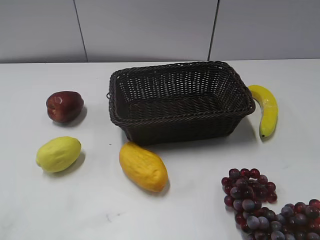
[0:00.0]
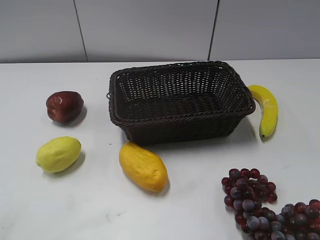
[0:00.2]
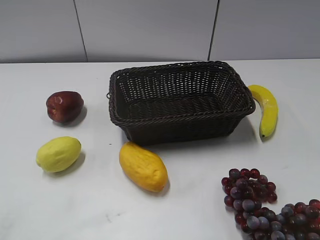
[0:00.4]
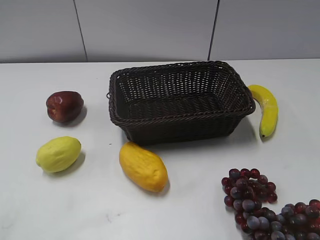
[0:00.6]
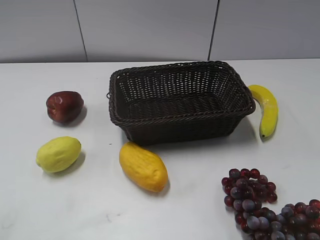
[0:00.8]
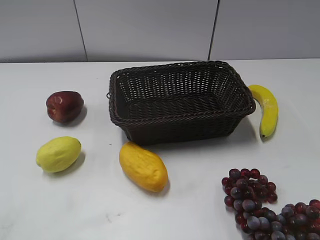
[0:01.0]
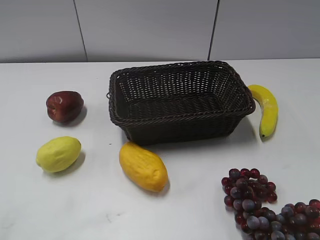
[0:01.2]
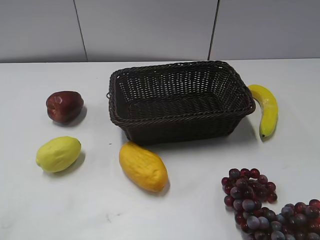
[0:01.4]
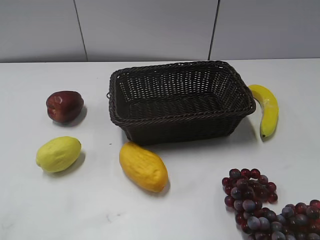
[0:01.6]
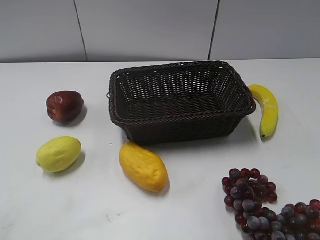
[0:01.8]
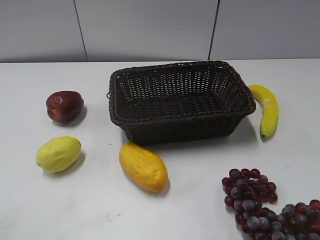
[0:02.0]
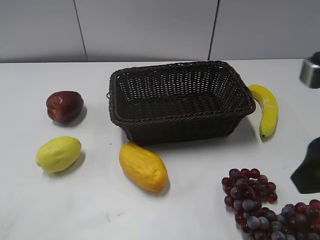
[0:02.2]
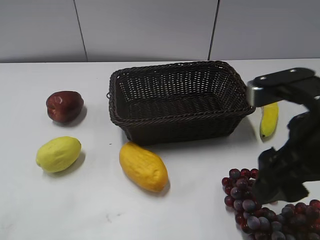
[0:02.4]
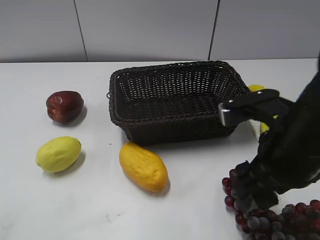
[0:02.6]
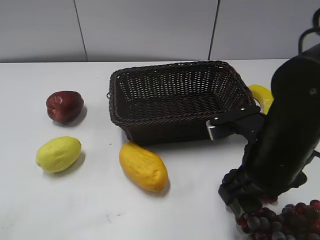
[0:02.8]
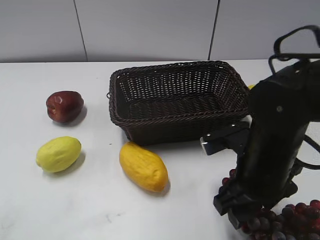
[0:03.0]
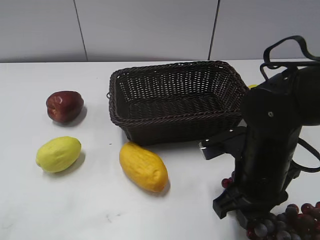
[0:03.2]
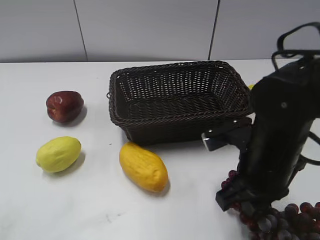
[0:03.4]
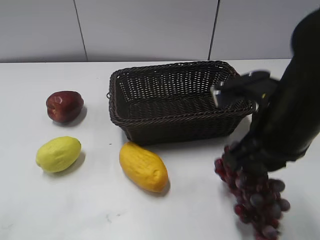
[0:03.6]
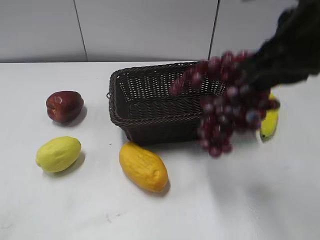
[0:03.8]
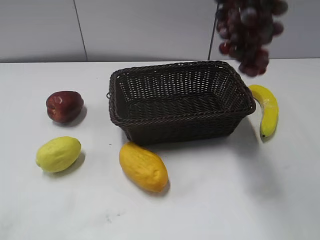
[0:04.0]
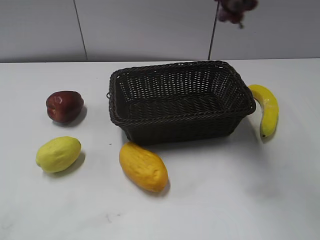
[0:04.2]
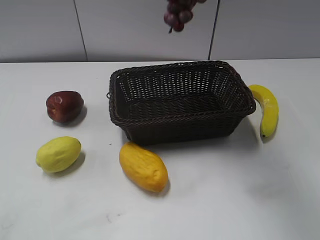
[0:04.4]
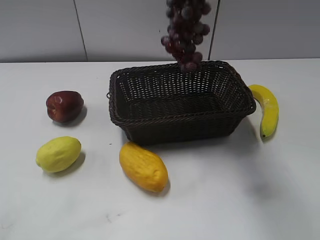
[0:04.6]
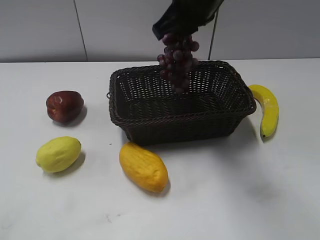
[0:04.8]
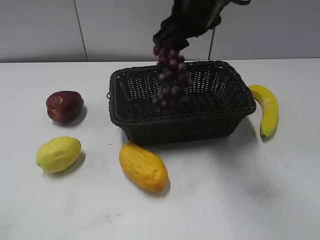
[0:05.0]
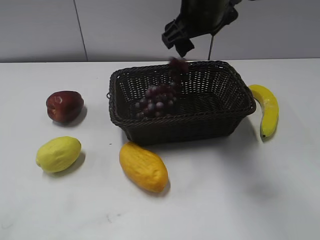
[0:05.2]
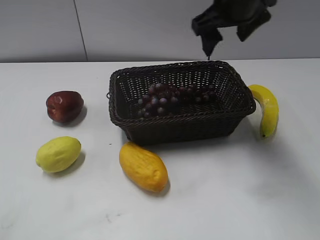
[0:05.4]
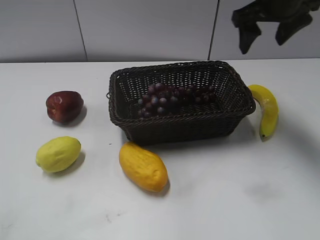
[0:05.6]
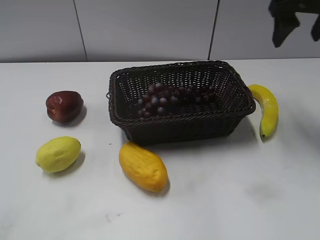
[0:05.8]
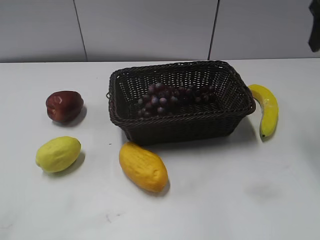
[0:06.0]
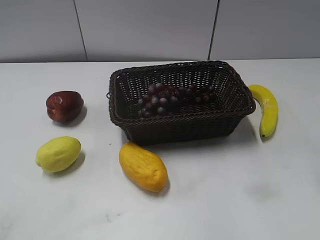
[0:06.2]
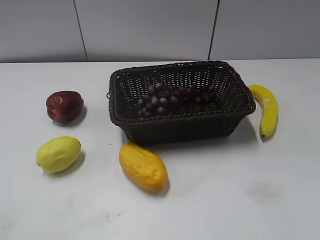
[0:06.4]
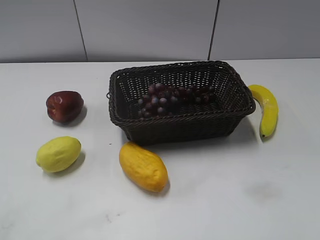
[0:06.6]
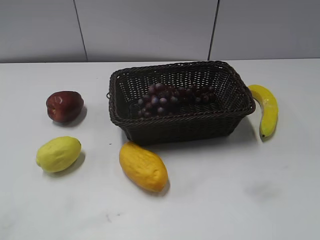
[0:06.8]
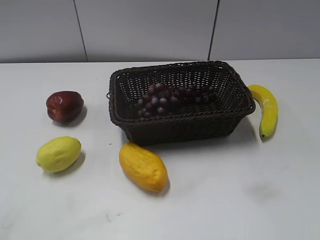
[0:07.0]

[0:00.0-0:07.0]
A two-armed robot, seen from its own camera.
Step, 0:02.2 to 0:03.4: Grasp the grape with right gripper.
Step, 0:03.6 to 0:05.2: Place the grape in the basket with right gripper.
0:01.4 to 0:02.8: The right gripper moves to the left, forward and downward, approximately 30 cm.
0:02.8 to 0:04.2: The right gripper is displaced upward by some 30 cm, and closes.
0:04.2 to 0:05.6: The right gripper goes about 20 cm downward, forward and to the right, and opens up.
0:05.6 to 0:07.0: The right gripper is displaced backward by roughly 35 cm.

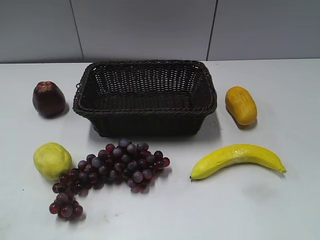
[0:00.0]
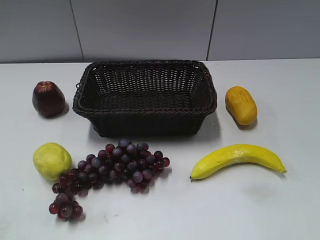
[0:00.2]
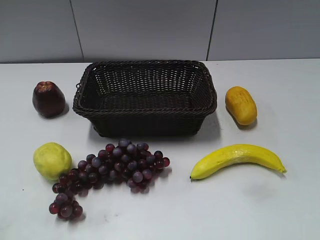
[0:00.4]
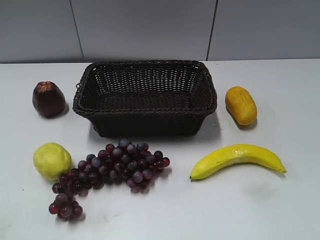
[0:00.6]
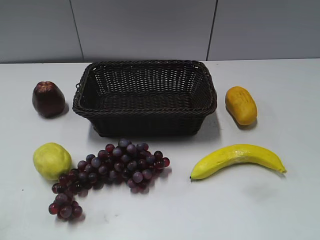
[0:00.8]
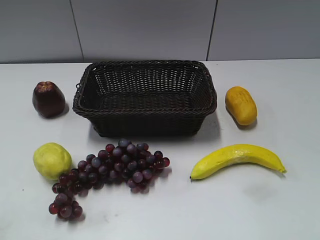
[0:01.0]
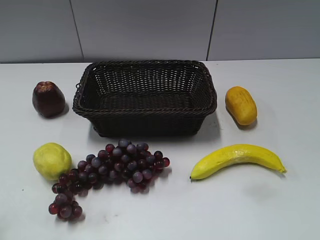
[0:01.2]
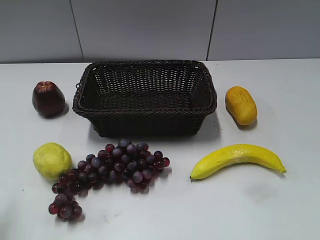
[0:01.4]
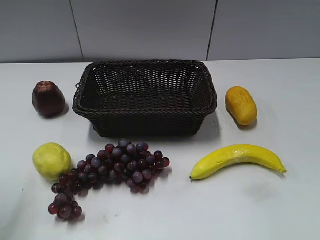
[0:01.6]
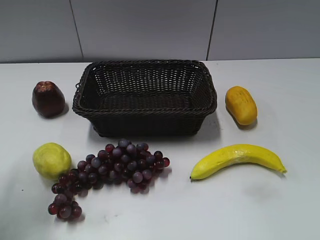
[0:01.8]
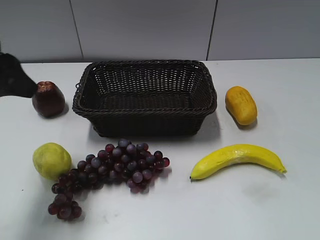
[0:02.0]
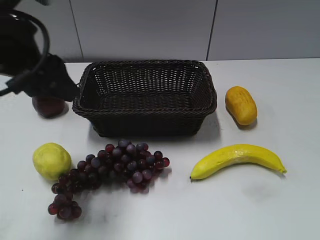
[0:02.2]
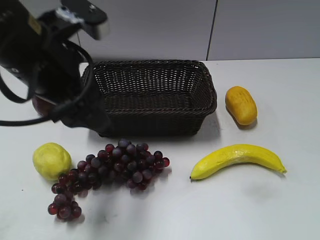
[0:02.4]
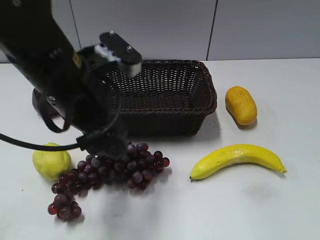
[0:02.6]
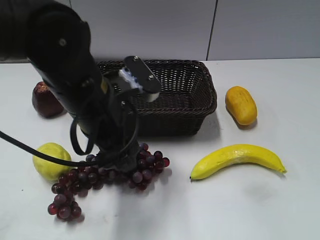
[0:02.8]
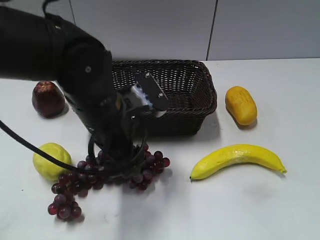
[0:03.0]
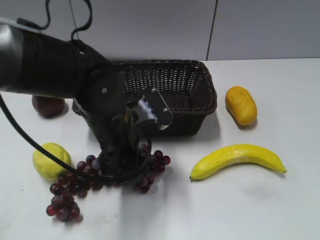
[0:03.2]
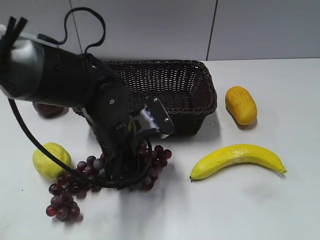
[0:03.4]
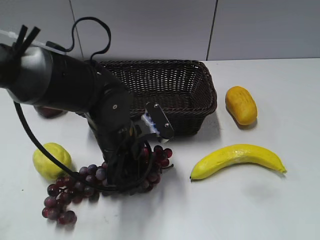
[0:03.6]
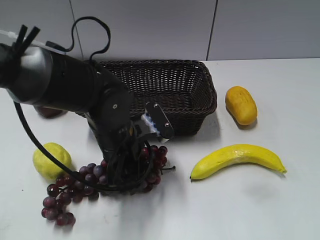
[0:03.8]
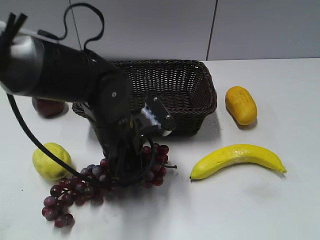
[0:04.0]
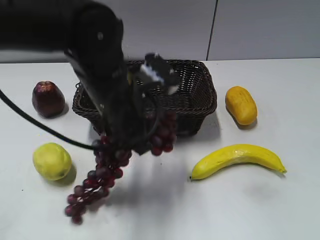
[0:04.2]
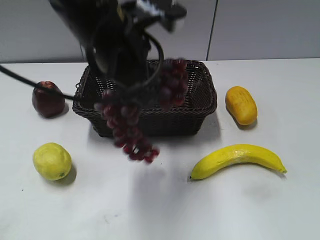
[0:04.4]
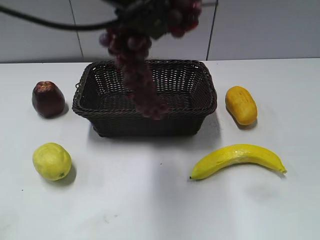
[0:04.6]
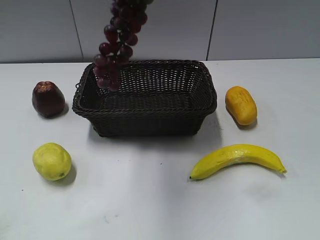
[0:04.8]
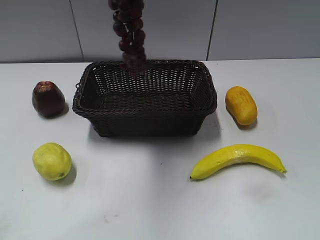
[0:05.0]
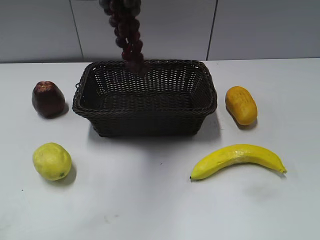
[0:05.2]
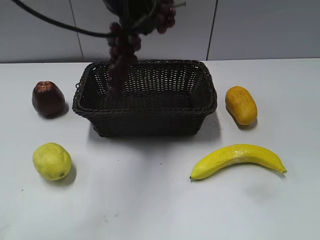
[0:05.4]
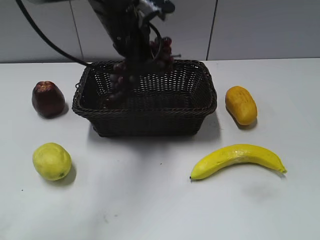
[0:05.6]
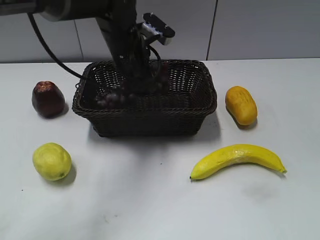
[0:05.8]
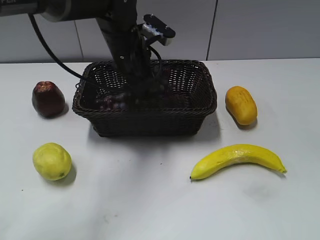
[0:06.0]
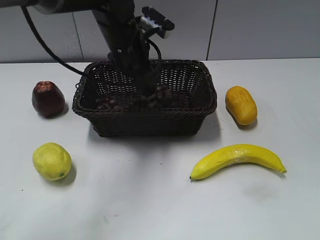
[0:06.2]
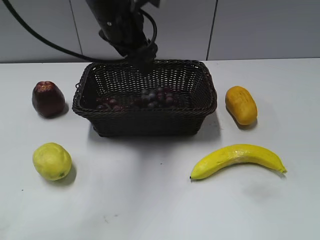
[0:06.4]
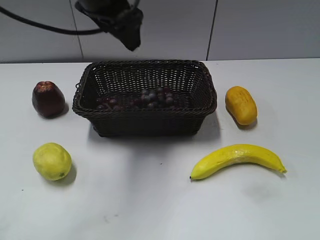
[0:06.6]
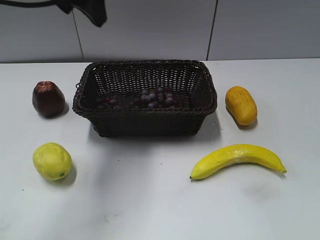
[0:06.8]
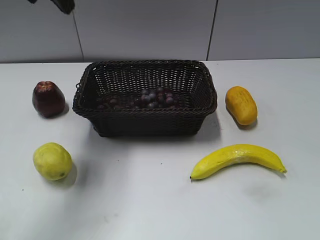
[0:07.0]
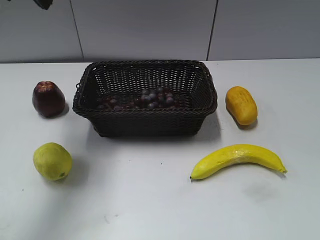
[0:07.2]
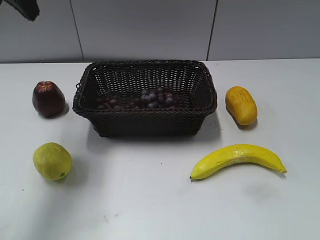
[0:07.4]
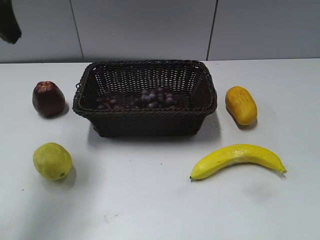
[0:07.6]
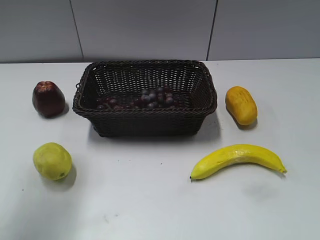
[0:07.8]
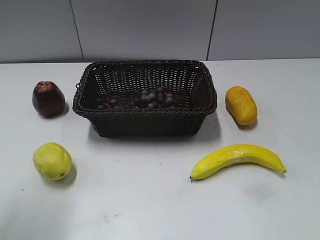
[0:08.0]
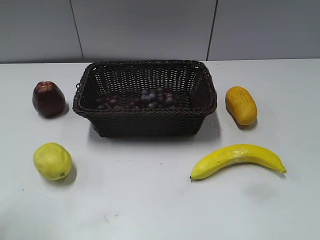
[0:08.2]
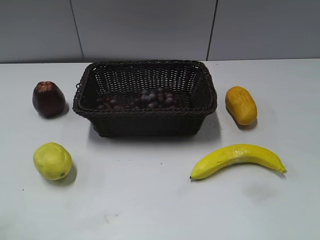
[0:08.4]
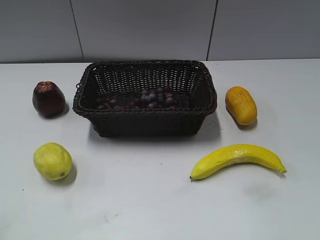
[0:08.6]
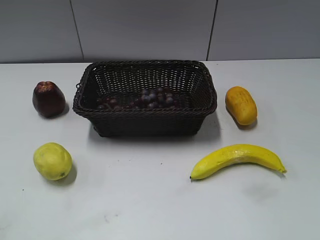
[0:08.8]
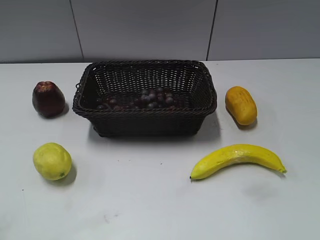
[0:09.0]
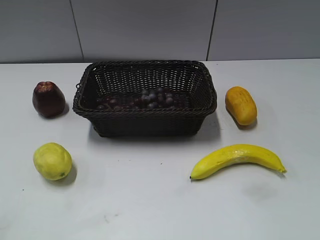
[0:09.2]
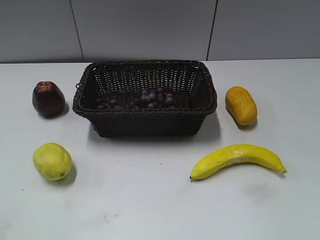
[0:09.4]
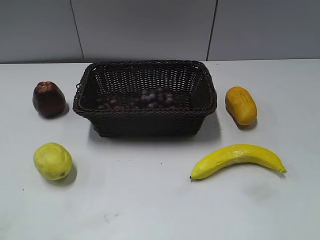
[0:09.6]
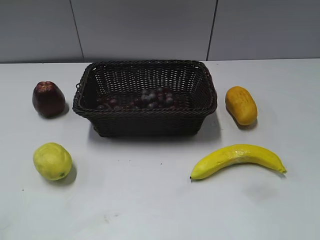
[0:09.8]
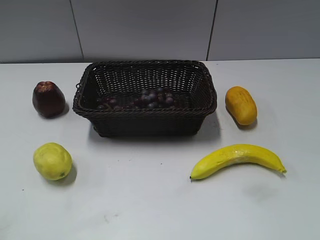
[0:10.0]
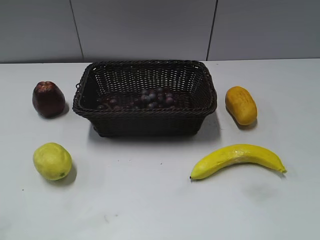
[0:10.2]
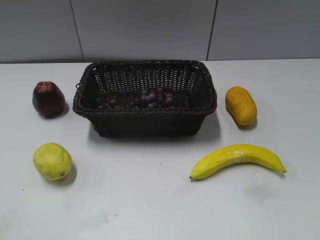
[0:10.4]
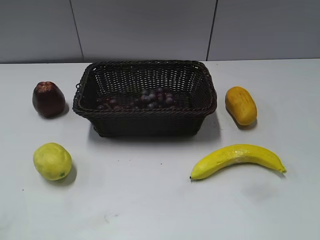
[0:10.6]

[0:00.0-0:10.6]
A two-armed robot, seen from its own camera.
Step, 0:02.0 to 0:03.6: Grasp the grape with left gripper.
Step, 0:03.8 to 0:06.0: Place the grape in the basket with left gripper.
0:01.6 to 0:03.0: The left gripper goes some 25 cm to the right and downward.
0:03.0 to 0:04.6: The left gripper is displaced upward by approximately 20 cm, and closes.
0:04.6 to 0:06.0: The left gripper goes some 20 cm downward and forward, and opens up.
0:06.0 to 0:07.6: The left gripper goes some 25 cm to the left, upward and backward.
0:07.6 to 0:09.0: The left gripper is displaced backward and downward by some 25 cm.
